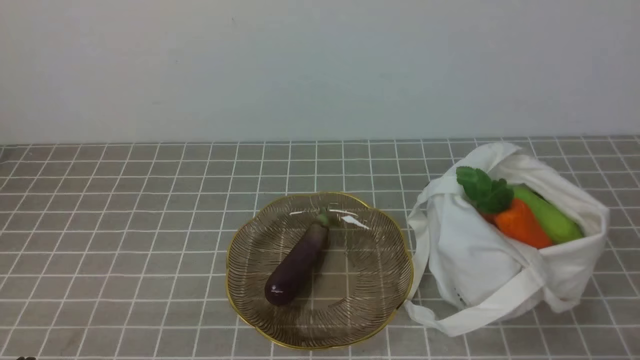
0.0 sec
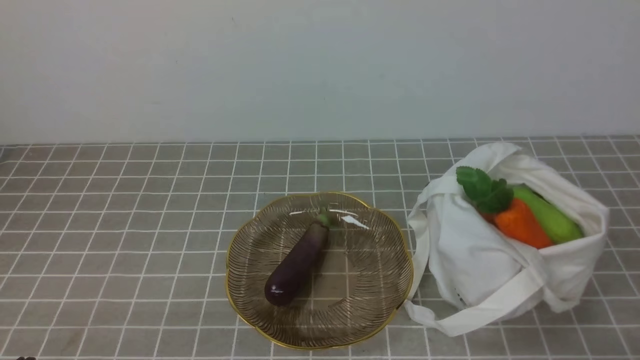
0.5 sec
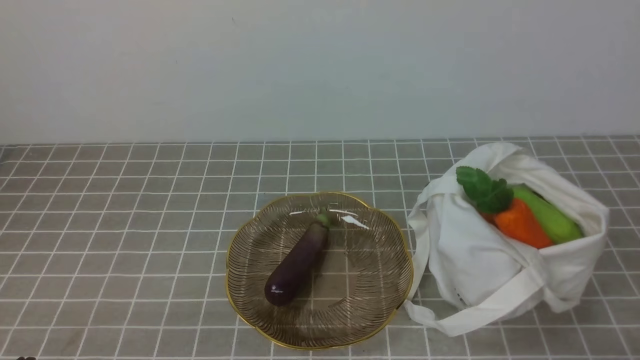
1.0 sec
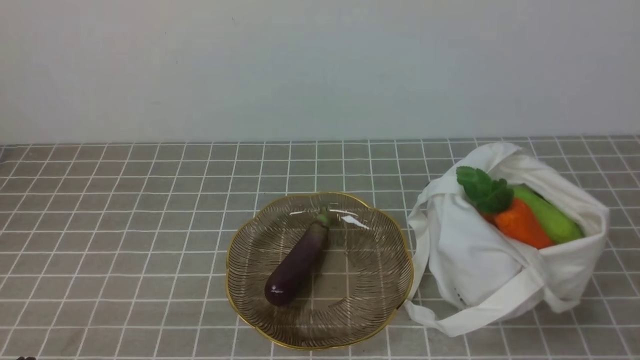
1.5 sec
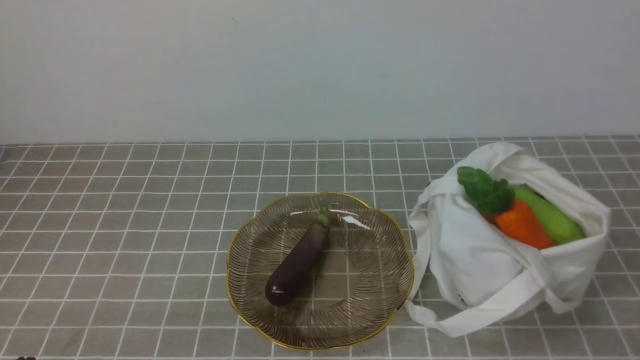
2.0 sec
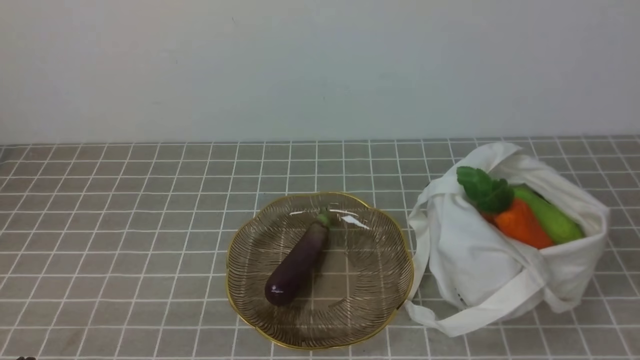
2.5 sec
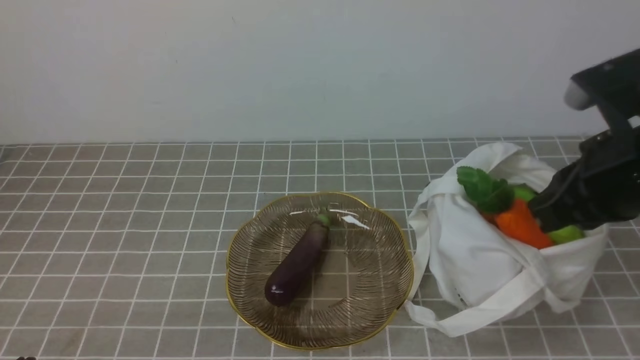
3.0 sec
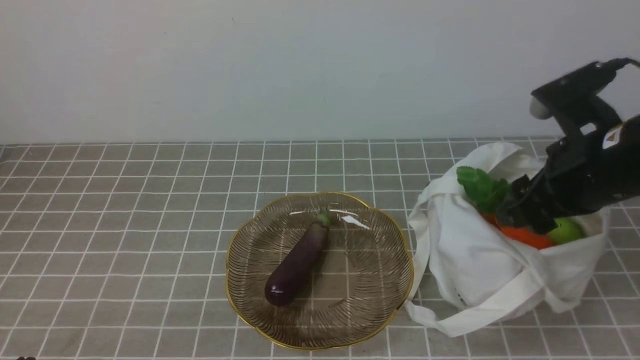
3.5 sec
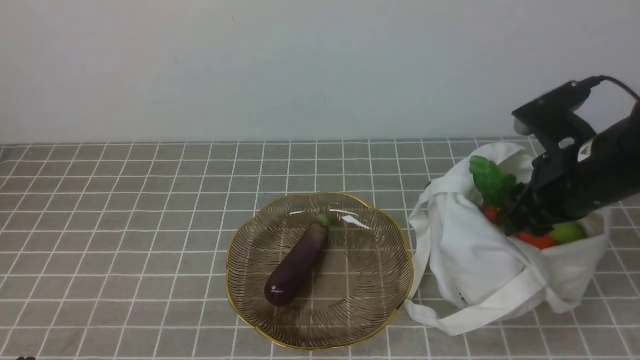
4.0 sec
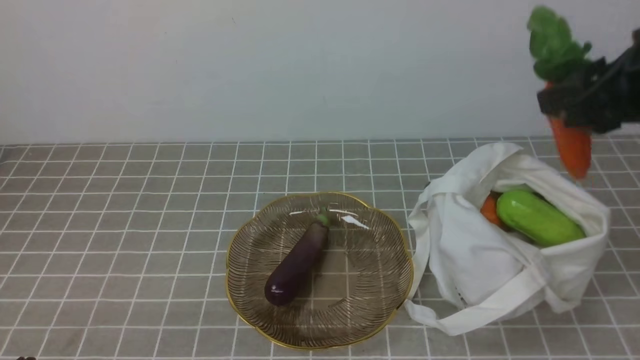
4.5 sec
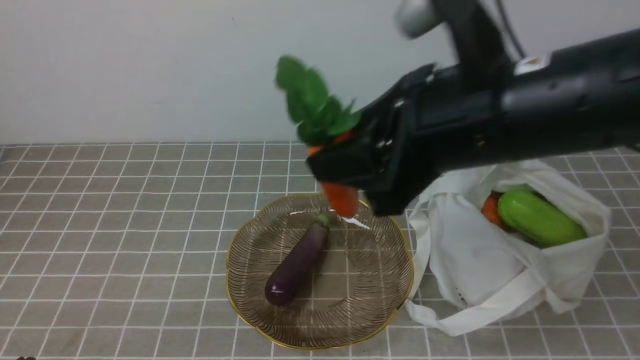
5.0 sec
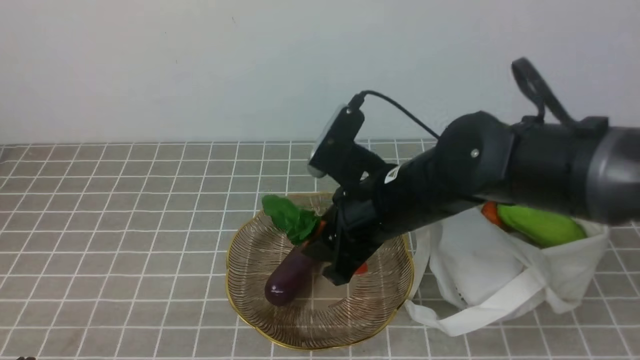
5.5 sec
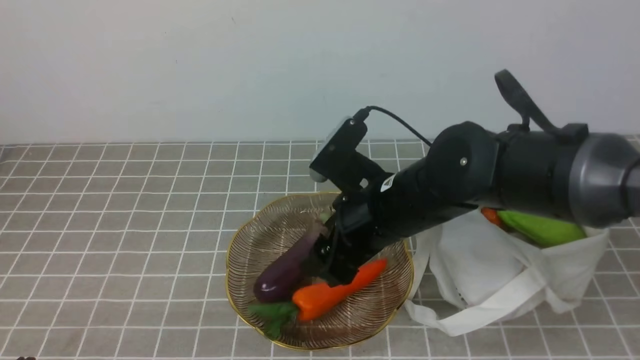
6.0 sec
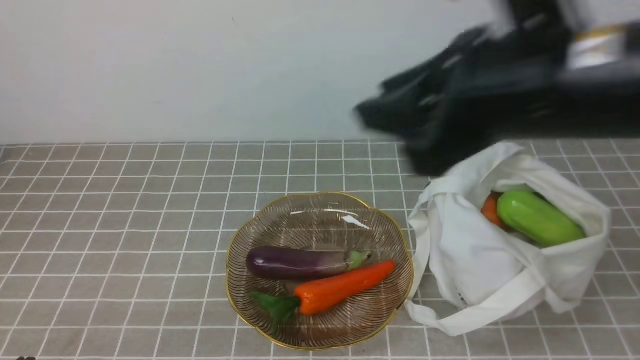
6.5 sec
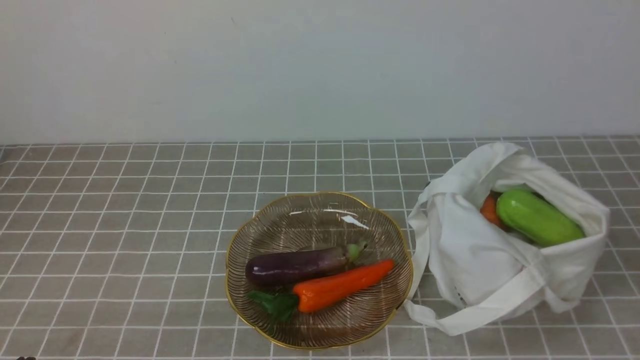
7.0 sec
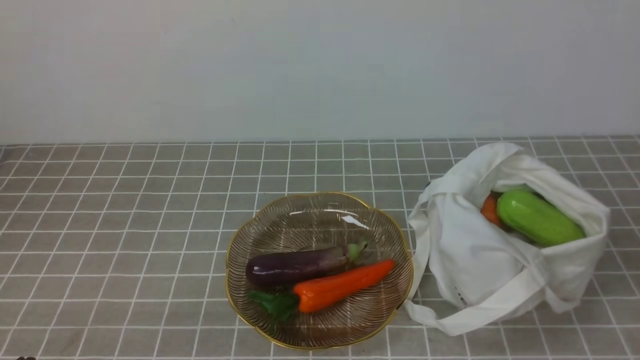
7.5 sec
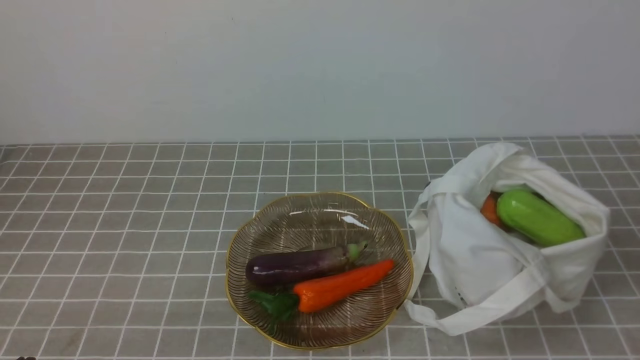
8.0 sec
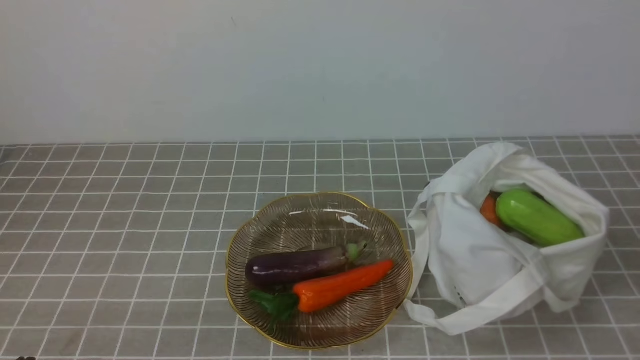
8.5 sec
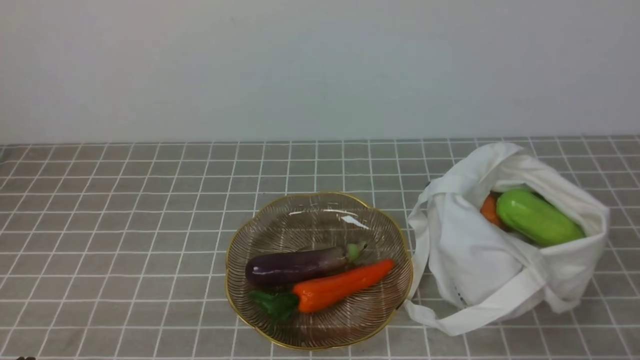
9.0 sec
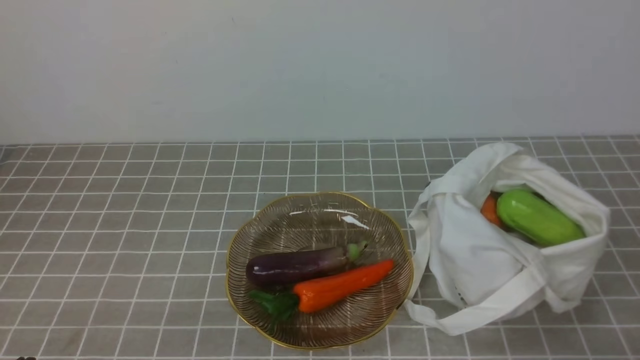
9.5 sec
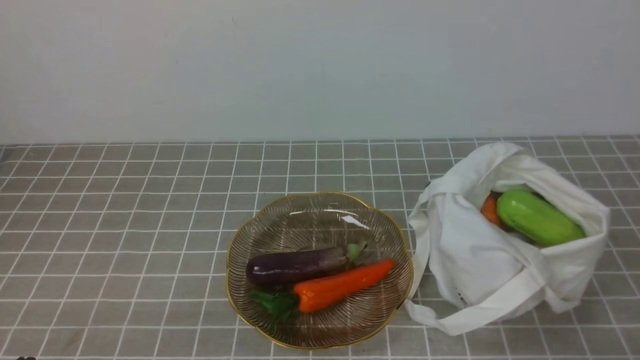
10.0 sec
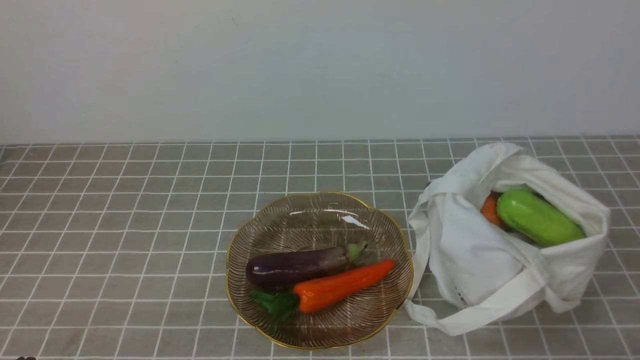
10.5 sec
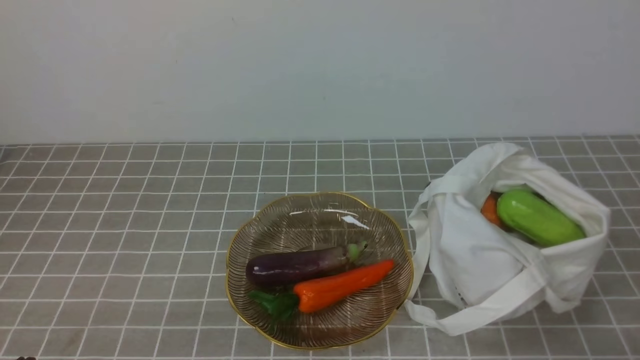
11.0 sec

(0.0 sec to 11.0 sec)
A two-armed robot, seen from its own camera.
Task of the whole recording: take vegetables from bag on grey coffee tablecloth place on plate.
Step, 0.0 sec - 3.5 sec: Grasp the carrot with right gripper.
Step, 4.0 sec - 6.0 sec: Place the carrot on the plate with right gripper.
2.0 sec - 3.5 sec: The right gripper shifts roughly 25 cm forward, and opens.
3.5 sec - 5.5 sec: The right gripper is displaced to the left by about 15 cm.
5.5 sec - 7.5 sec: The right gripper heads backward, to the right and upward, covering about 40 cm, and closes its fingers.

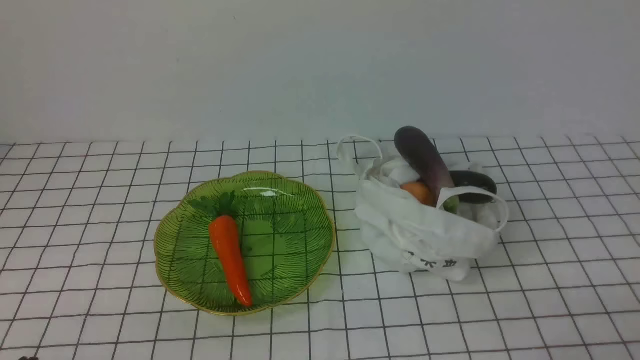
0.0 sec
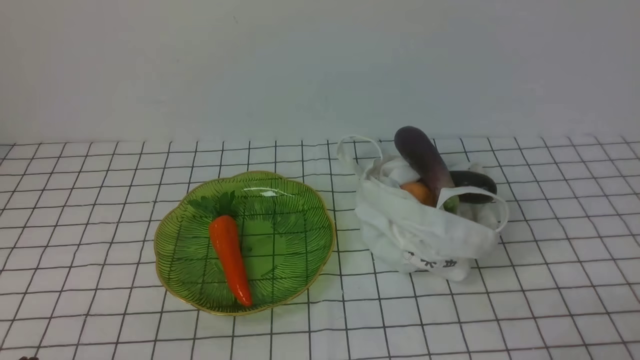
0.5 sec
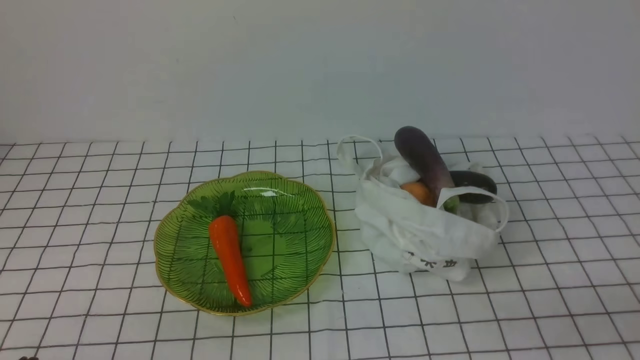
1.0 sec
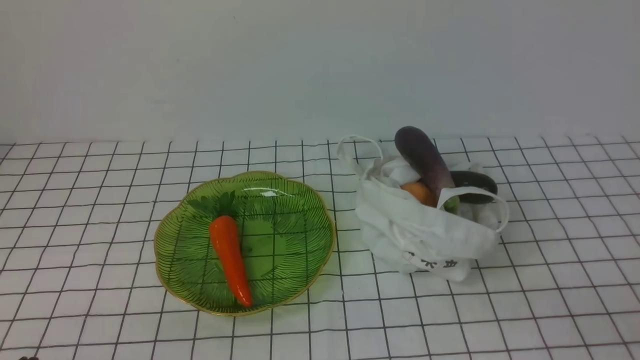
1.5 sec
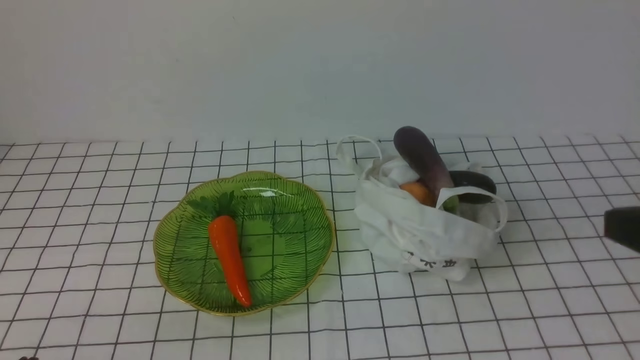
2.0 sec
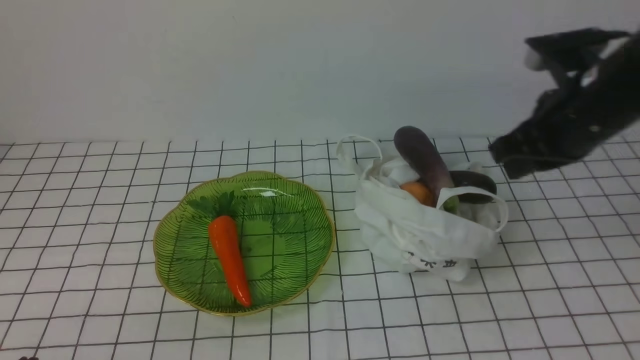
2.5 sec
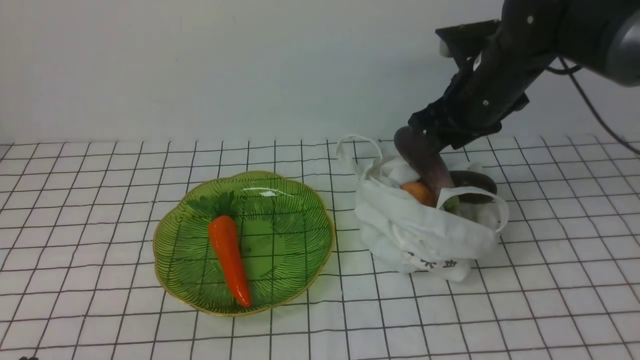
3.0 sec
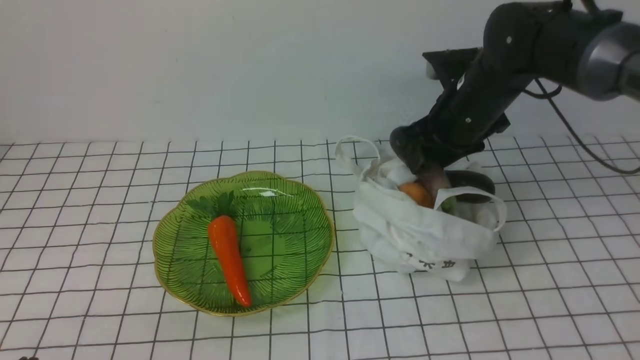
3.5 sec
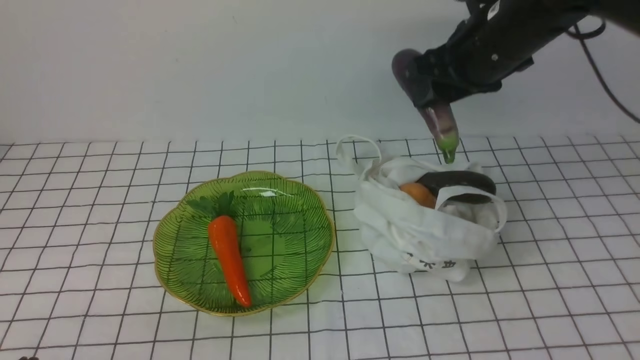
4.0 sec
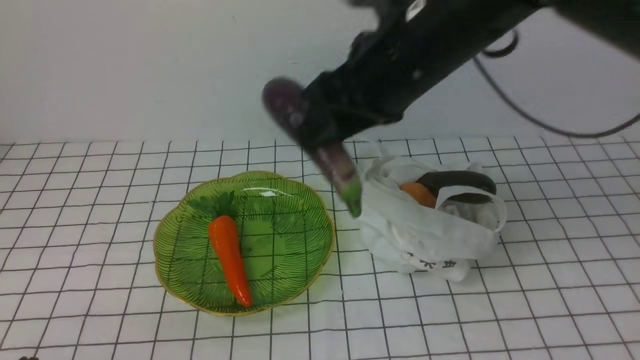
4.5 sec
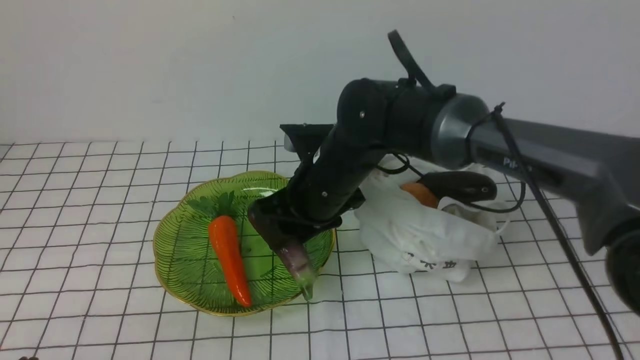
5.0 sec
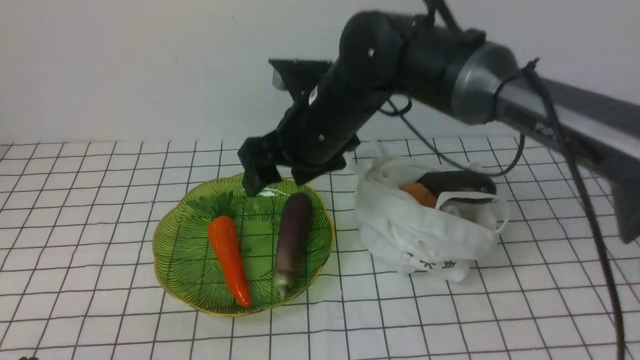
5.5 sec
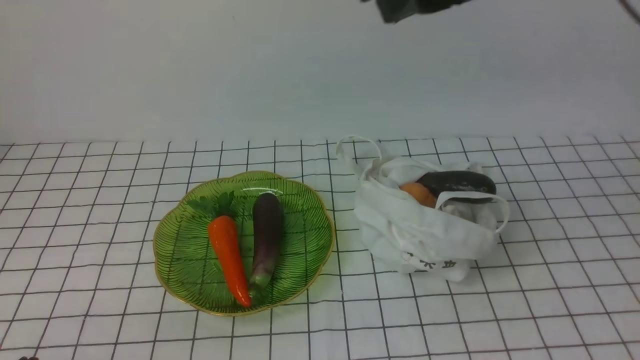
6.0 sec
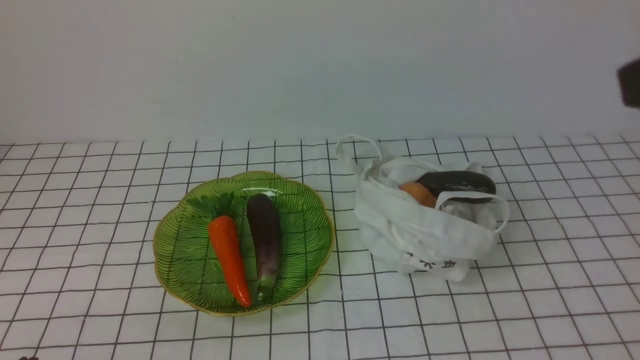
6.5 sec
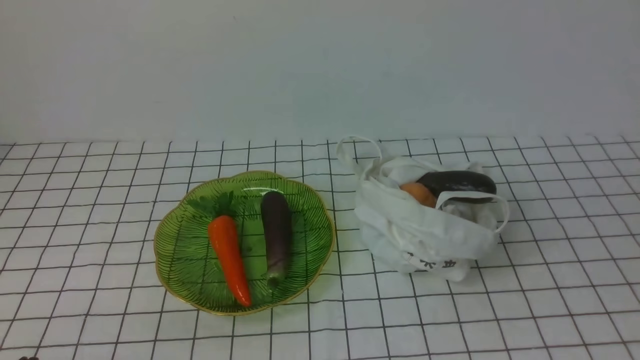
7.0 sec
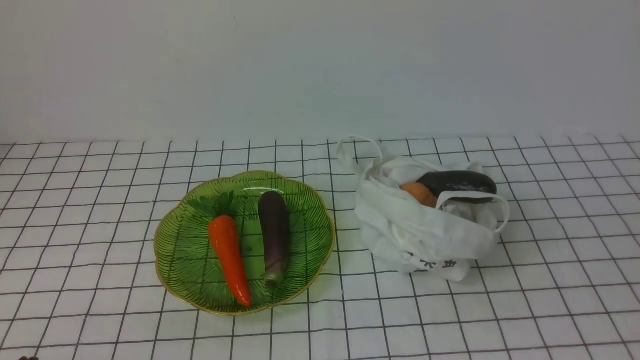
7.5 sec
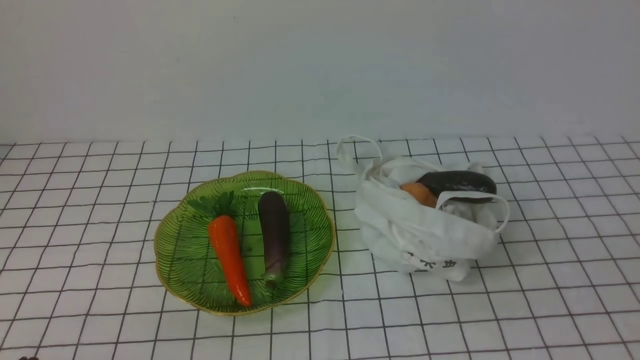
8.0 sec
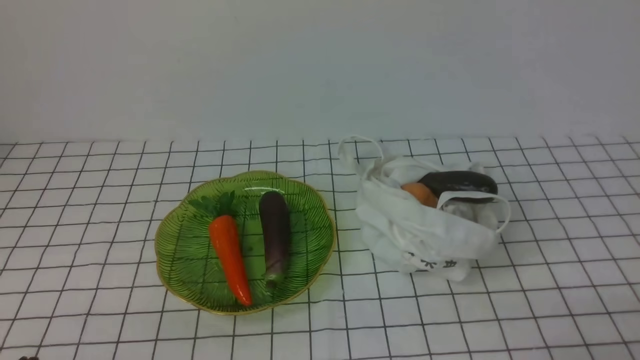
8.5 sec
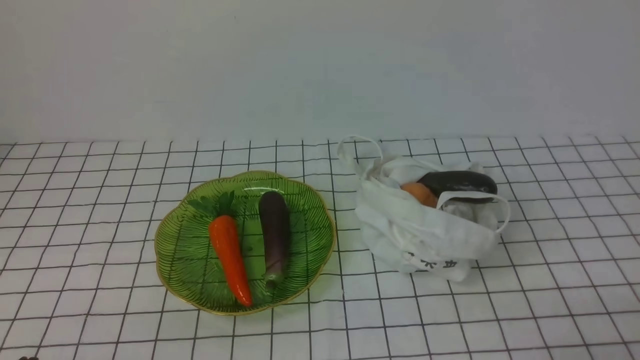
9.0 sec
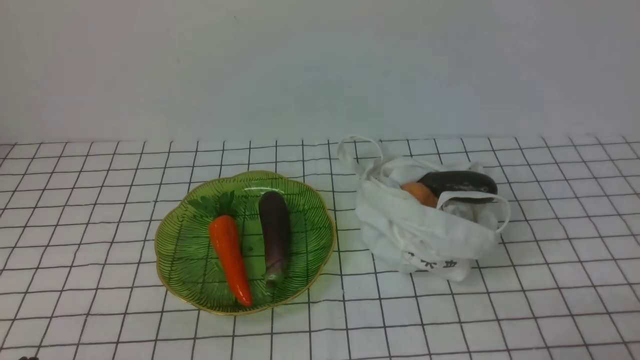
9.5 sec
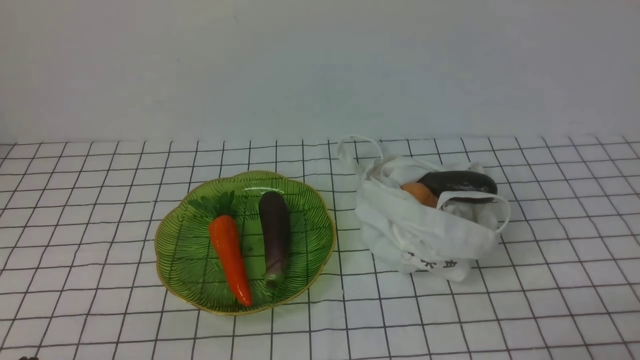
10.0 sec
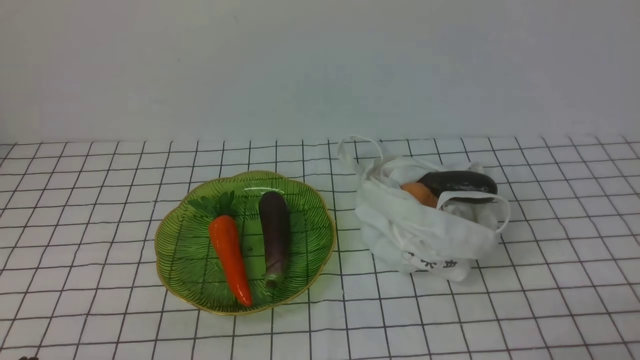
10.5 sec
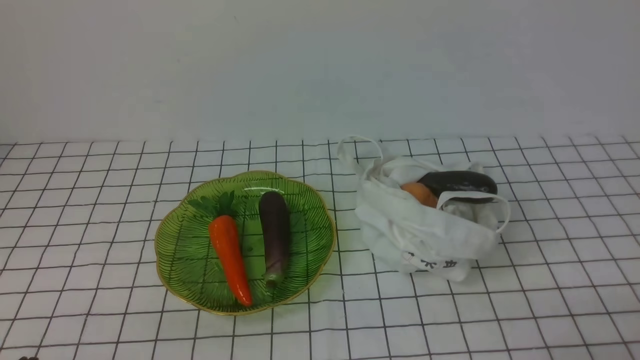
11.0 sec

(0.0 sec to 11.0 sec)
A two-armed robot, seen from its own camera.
Task of the whole recording: take vegetables from bag on white checkered tablecloth place on plate.
Step, 0.0 sec - 3.0 sec: Grasp the eggplant with right gripper.
Step, 4.0 sec - 5.0 sec: Place the eggplant on the plate with right gripper.
2.0 sec - 3.5 sec: The right gripper shifts roughly 30 cm forward, and opens up.
3.5 sec - 5.5 sec: The right gripper heads to the left, covering some 15 cm.
5.5 sec - 7.5 sec: The right gripper shifts about 50 cm backward and to the right, and closes its fingers.
9.0 sec - 11.0 sec: Neither gripper changes place.
